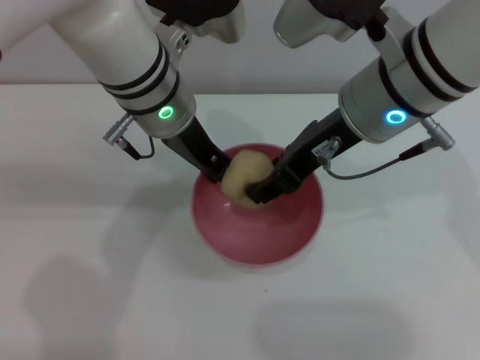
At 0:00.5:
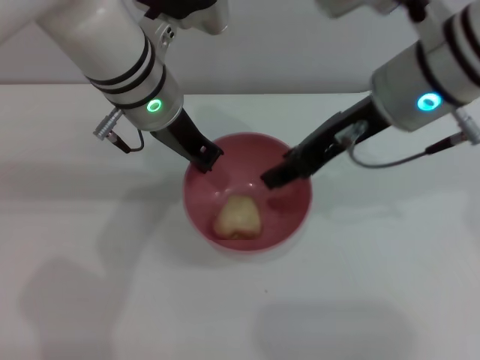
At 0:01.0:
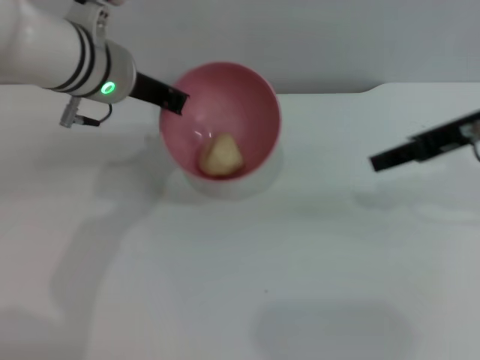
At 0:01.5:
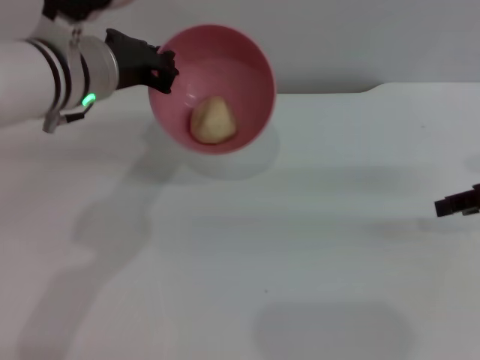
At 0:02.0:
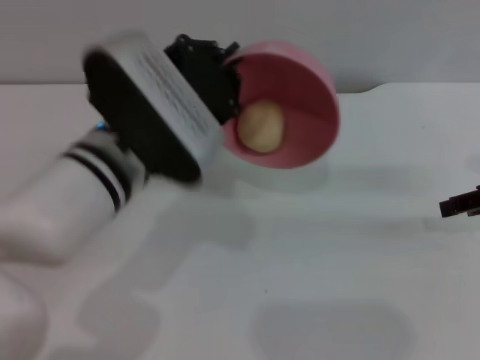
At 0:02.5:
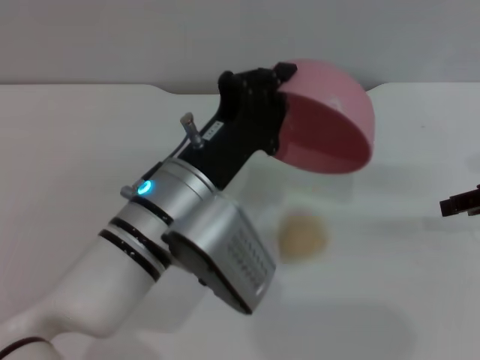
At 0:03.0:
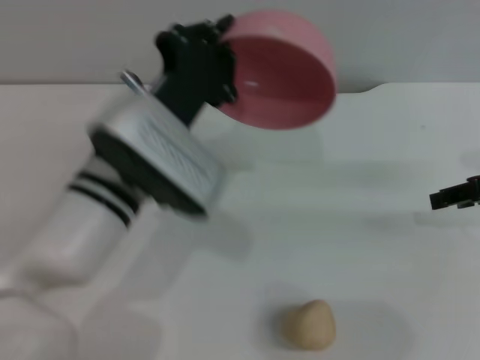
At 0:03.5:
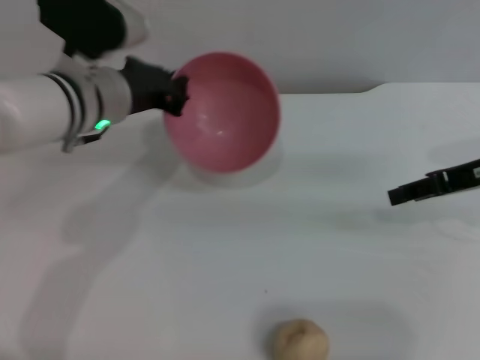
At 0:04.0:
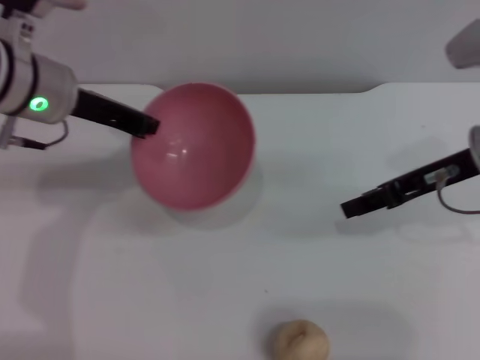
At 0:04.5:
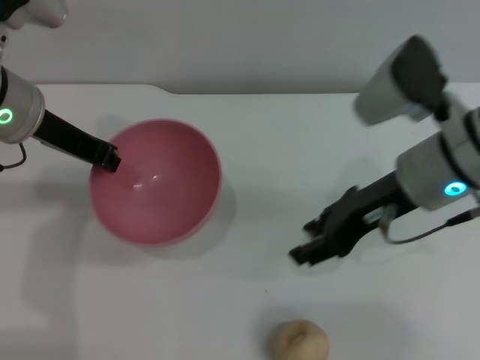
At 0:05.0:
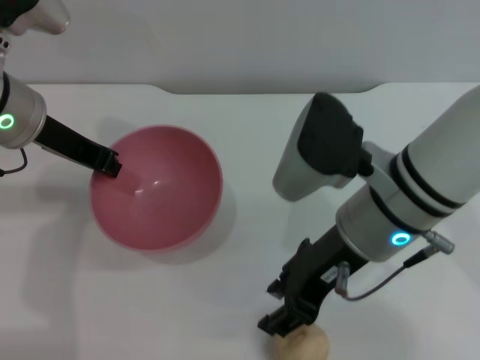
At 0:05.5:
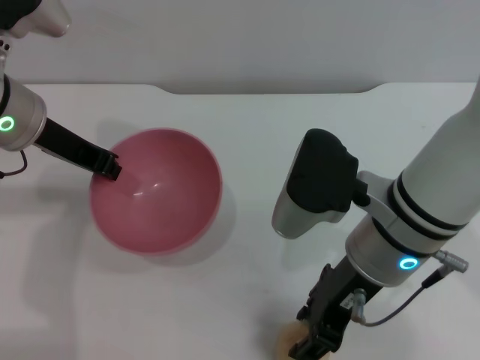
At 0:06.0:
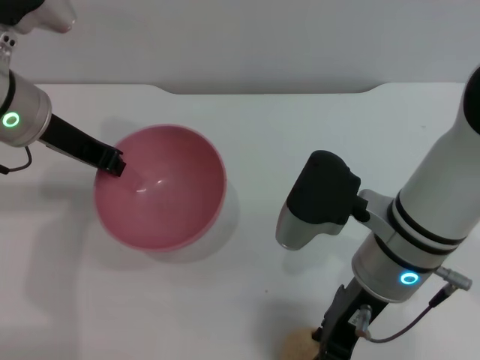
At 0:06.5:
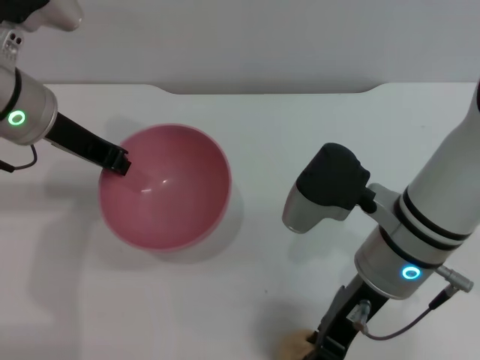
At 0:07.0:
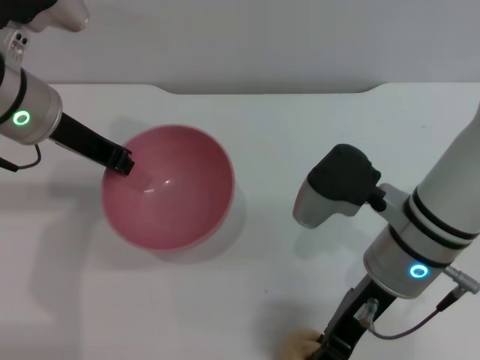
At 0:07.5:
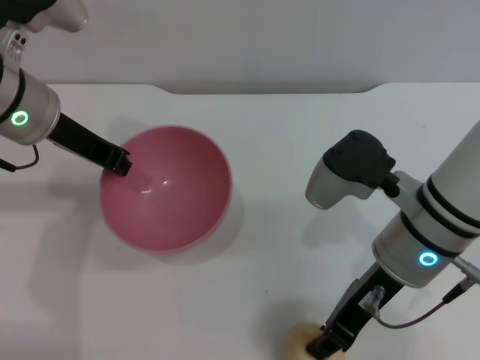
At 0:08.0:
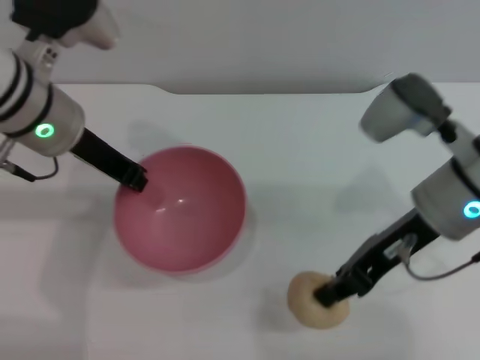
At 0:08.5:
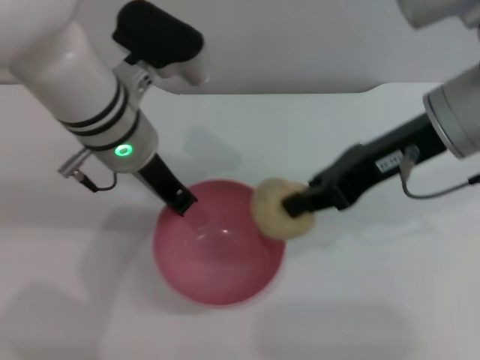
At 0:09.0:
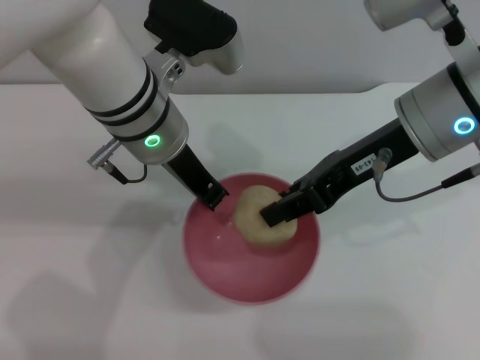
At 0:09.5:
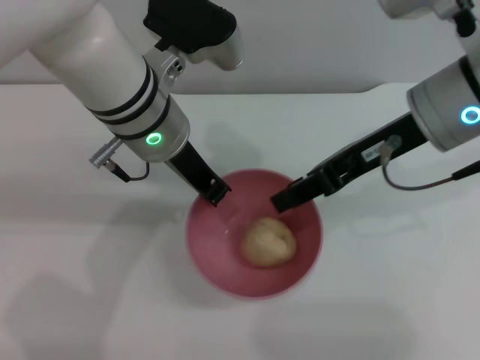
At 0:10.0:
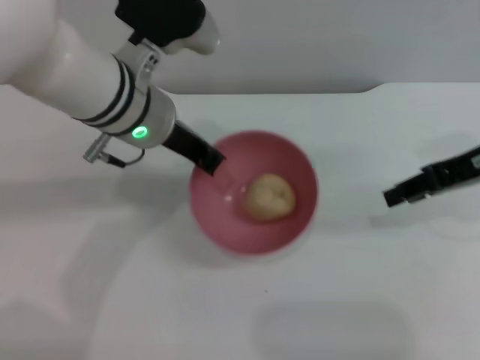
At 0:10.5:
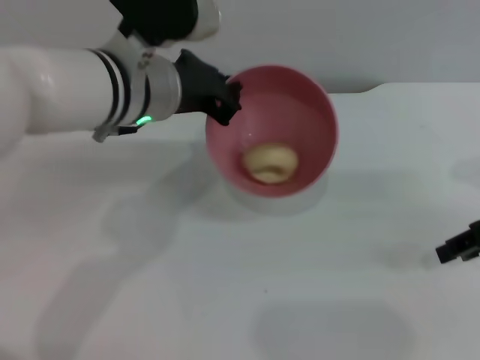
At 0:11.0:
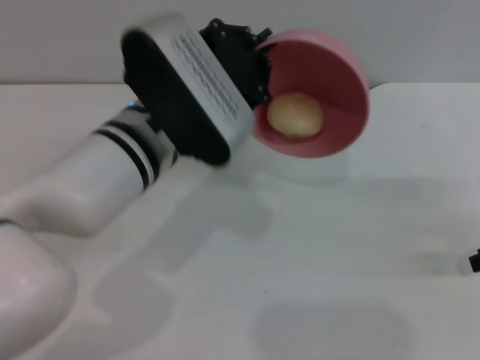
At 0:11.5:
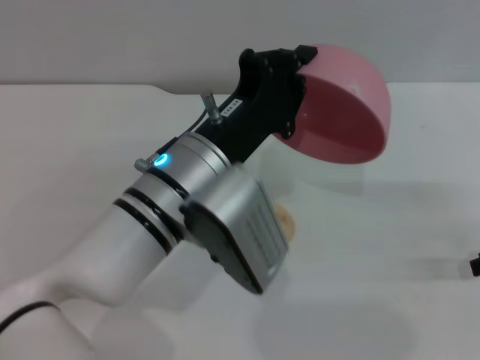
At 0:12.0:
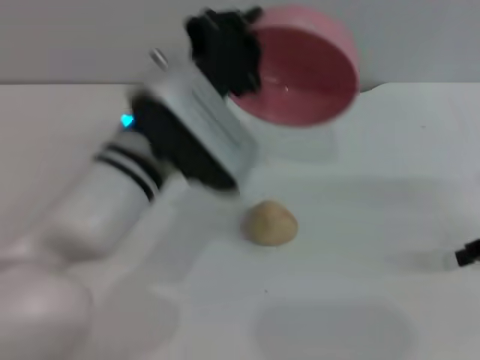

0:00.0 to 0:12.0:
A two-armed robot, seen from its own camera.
Task of the whole recording: put the egg yolk pastry into the pink bowl and pour it out repeatedly.
Step, 0:01.0 to 0:02.5: Pour the egg yolk pastry out of bowl.
Step, 0:03.0 to 0:07.5: Pick up the egg yolk pastry with the right gripper.
Step, 0:08.0 to 0:10.5: Place the egg yolk pastry into the bowl.
0:00.0 to 0:02.0: The right gripper is displaced to the right by roughly 20 cm. The left gripper shifts roughly 10 cm backward.
0:02.0 to 0:04.0: The left gripper shifts about 15 cm to the left and forward, while the right gripper shifts some 10 cm to the left.
0:04.0 to 0:06.0: The right gripper heads to the left and backward, covering roughly 15 cm.
0:06.0 to 0:08.0: The right gripper goes approximately 5 cm to the right, and closes its fingers.
0:08.0 to 0:10.0: Both grippers move to the right, some 10 cm. The right gripper opens up.
0:10.0 to 0:12.0: The right gripper moves to the right and downward, approximately 10 cm; the left gripper is displaced backward by approximately 5 cm.

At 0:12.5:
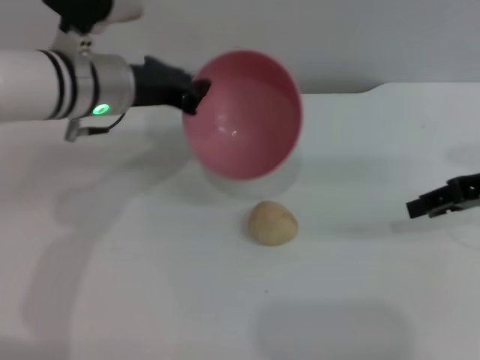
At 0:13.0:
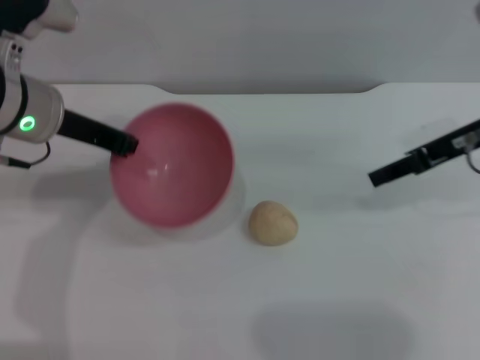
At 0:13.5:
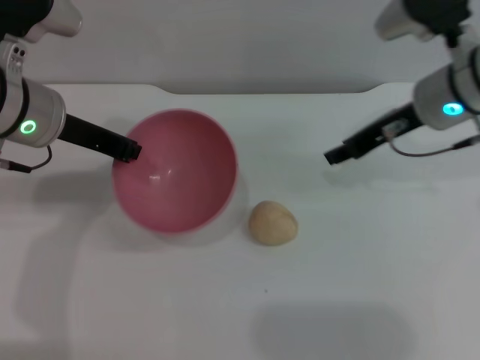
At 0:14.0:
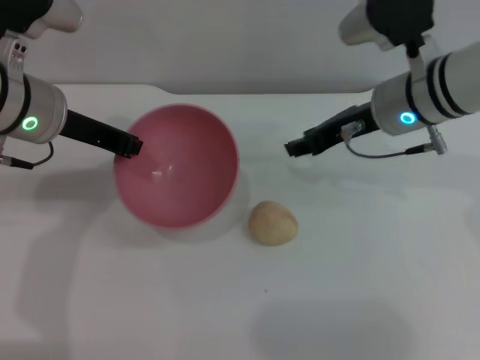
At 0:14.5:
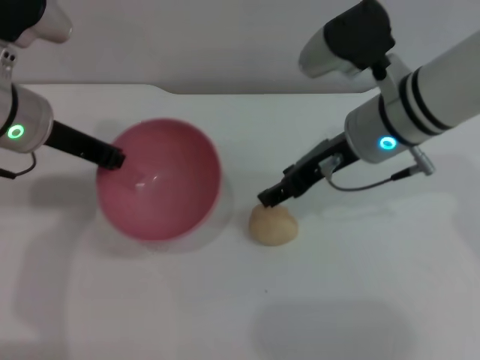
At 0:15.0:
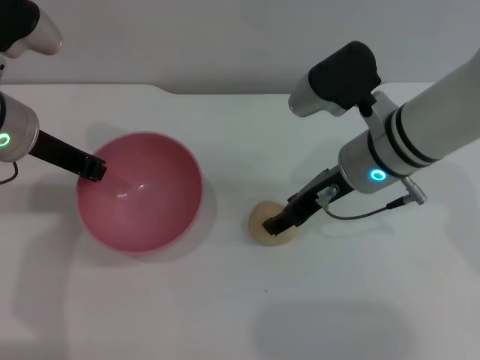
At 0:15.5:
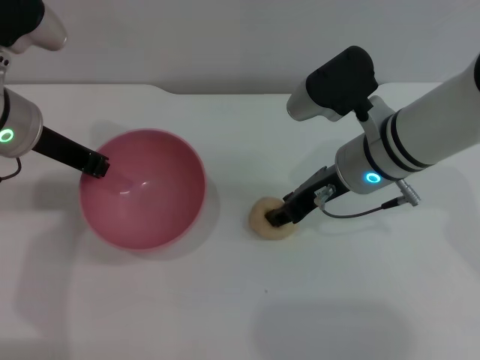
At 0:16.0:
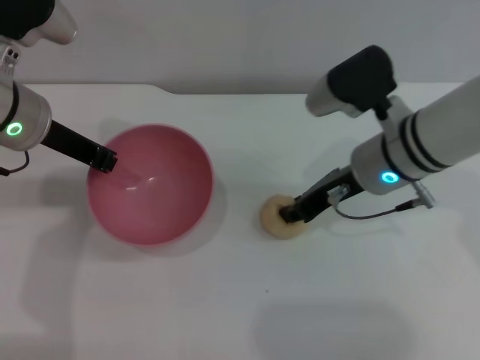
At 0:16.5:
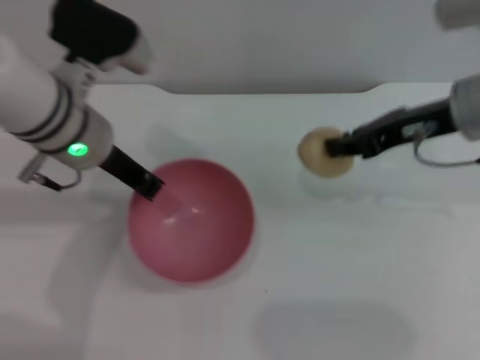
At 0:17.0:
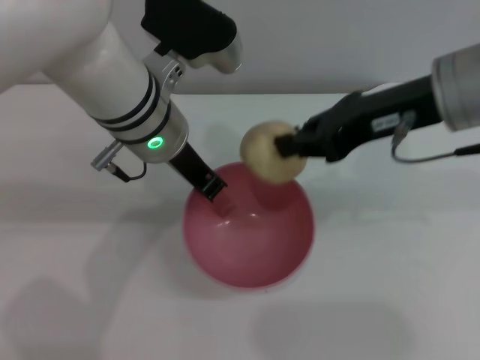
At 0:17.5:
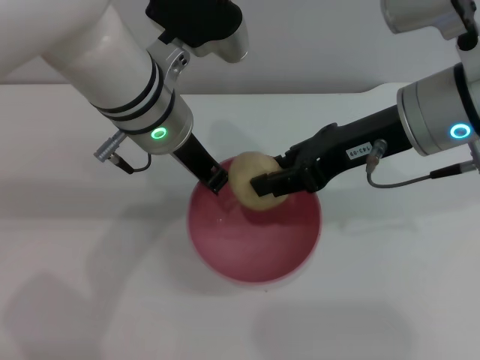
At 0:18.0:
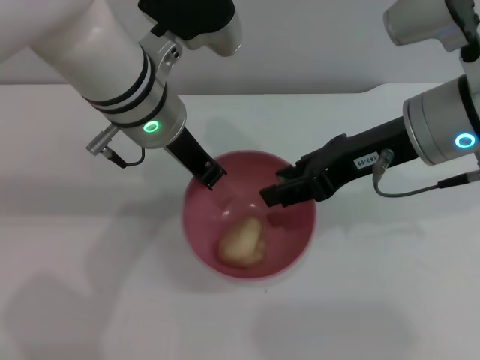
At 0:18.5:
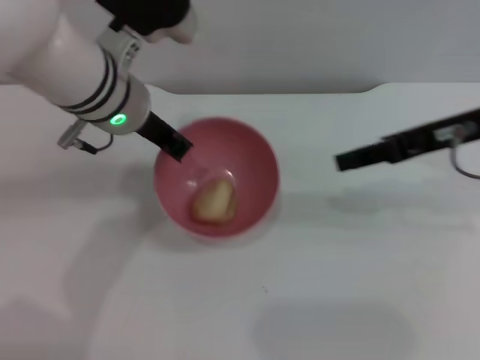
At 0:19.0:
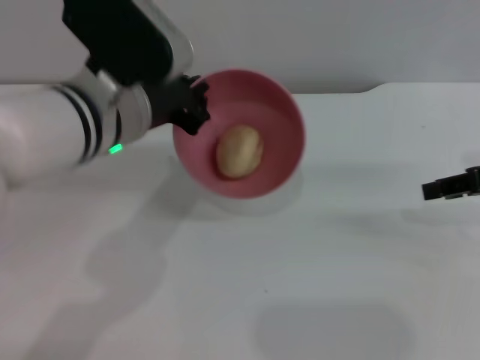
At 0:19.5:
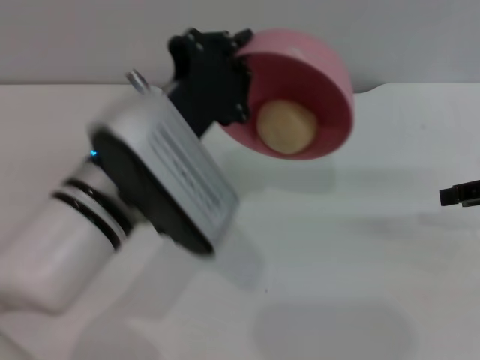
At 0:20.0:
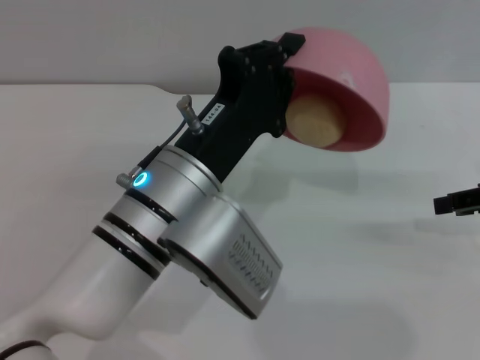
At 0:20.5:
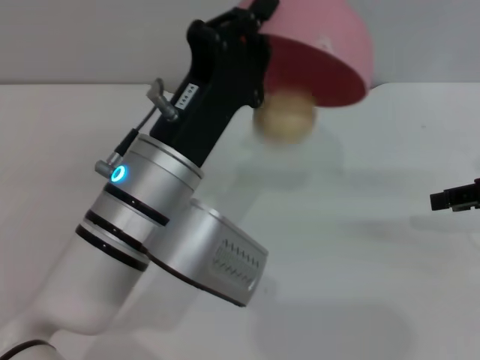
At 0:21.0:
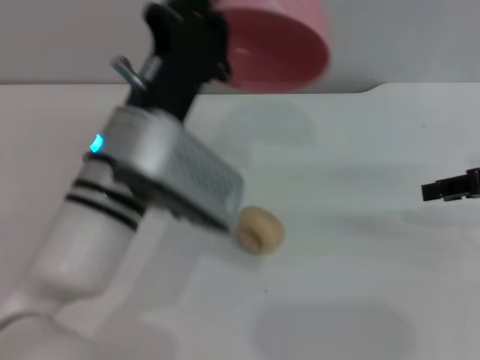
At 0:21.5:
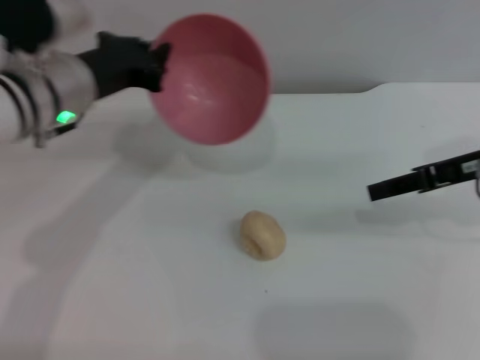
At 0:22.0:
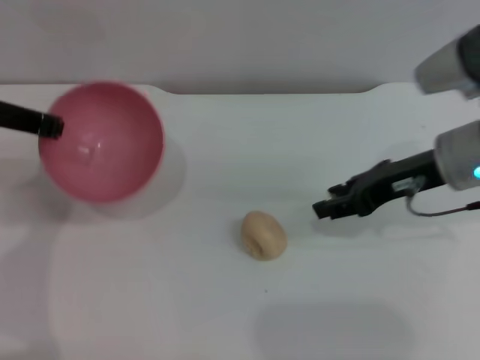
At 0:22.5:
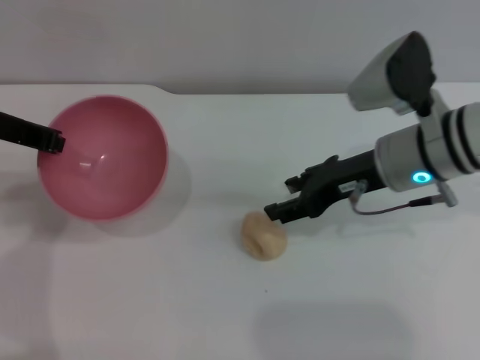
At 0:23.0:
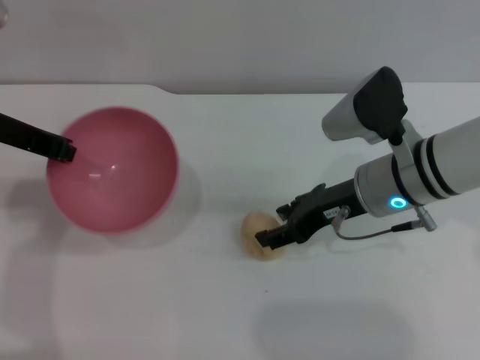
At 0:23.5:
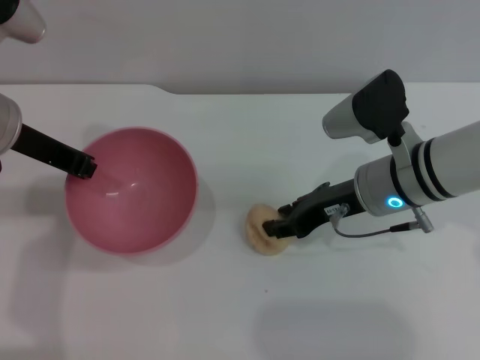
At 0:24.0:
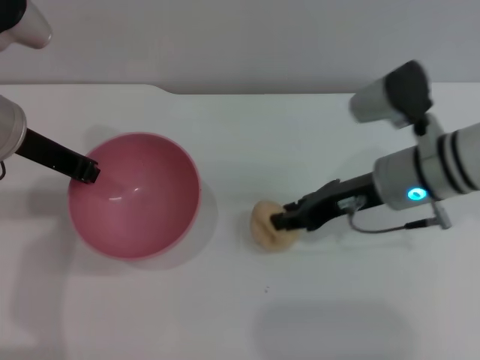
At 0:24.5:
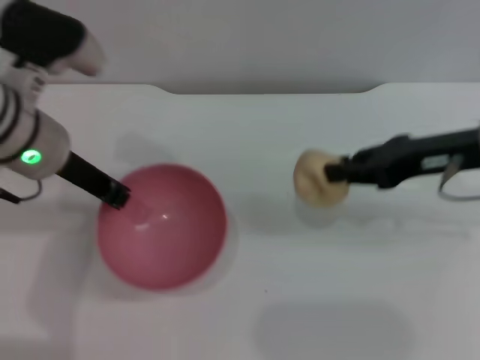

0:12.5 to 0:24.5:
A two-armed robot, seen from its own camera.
Task of the whole recording: put the egg yolk pastry into the pink bowl and pour it out repeatedly.
Step, 0:12.5 to 0:16.0: Pick up the egg yolk pastry with the right gripper.
Step, 0:16.5 to 0:18.0: Place the egg yolk pastry into the bowl.
Step, 0:19.0 to 0:21.0: Pour the egg yolk pastry out of bowl.
Step, 0:21.5 to 0:24.0: Pick up the egg yolk pastry with the right gripper.
0:12.5 to 0:14.5: The left gripper moves to the left, roughly 5 cm. Meanwhile the right gripper moves to the left, about 15 cm.
0:14.5 to 0:16.5: Both grippers travel together to the right, roughly 5 cm. The right gripper closes its fingers.
0:16.5 to 0:18.5: The right gripper moves approximately 5 cm to the left and comes back, and opens.
0:18.5 to 0:20.5: The right gripper travels to the right by some 10 cm; the left gripper travels backward and downward by approximately 15 cm.
0:20.5 to 0:22.5: The right gripper shifts roughly 15 cm to the left, while the left gripper moves to the left and forward, about 20 cm.
0:22.5 to 0:24.5: Both grippers move to the right, approximately 5 cm. The right gripper closes up.

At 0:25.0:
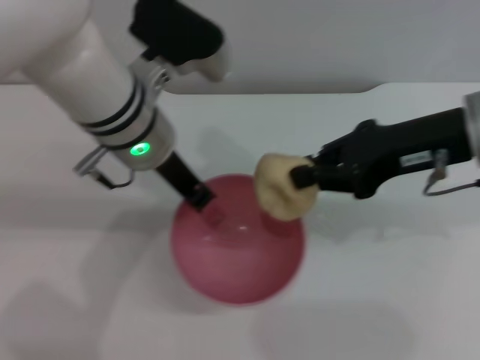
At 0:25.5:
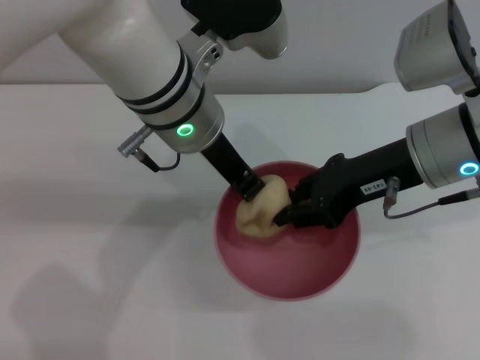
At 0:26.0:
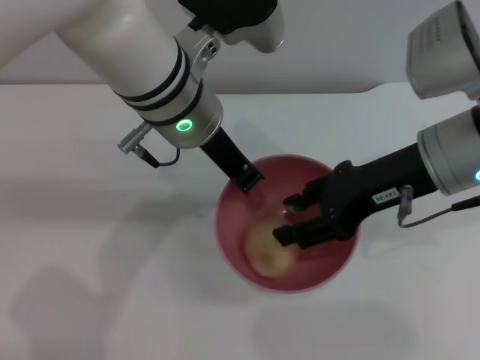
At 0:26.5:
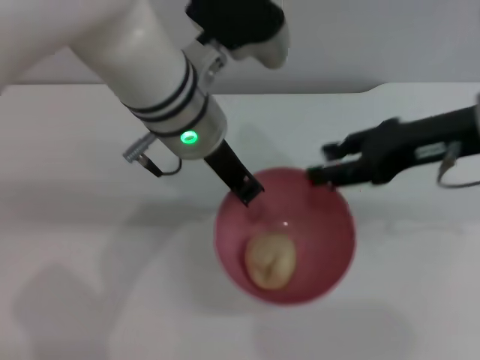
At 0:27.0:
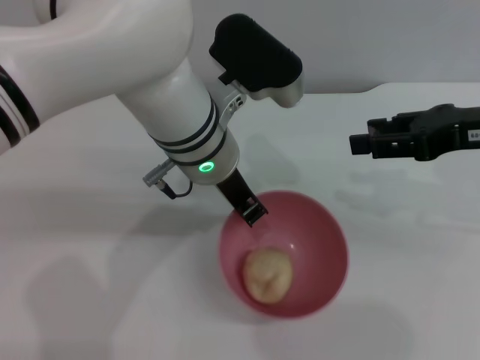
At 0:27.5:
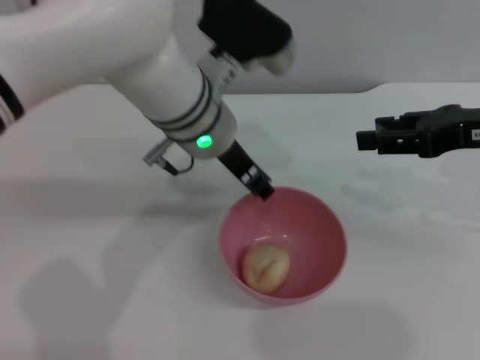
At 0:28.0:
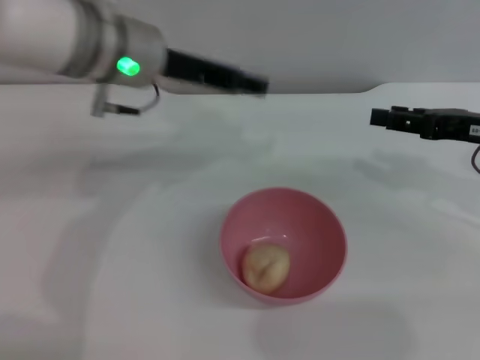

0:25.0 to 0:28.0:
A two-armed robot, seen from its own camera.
Task of the whole recording: put the egg yolk pastry into the pink bowl and pour it out repeatedly.
Step, 0:25.0 to 0:26.0: Place the egg yolk pastry into the bowl.
Step, 0:26.5 to 0:27.5: Place the bowl on the table.
0:25.0 to 0:26.5: The right gripper opens.
0:26.5 to 0:28.0: The right gripper moves to the right and downward, about 10 cm. The left gripper moves to the left, some 5 cm, and opens its fingers.
